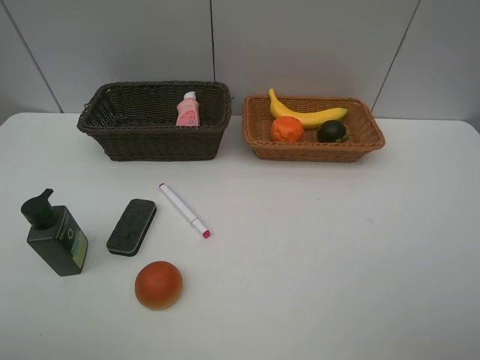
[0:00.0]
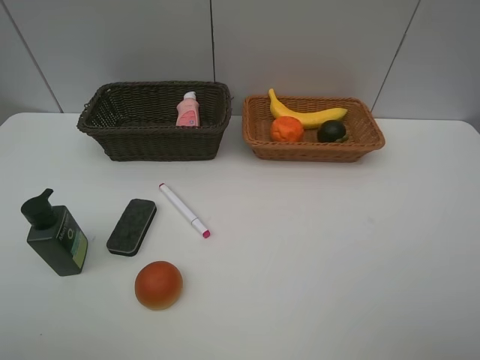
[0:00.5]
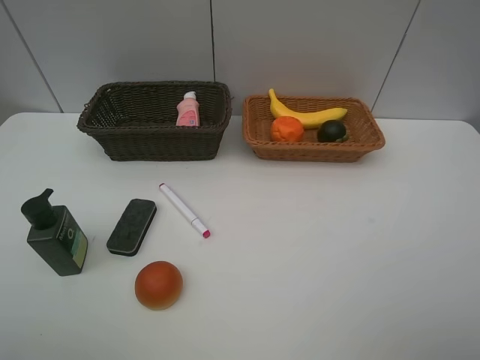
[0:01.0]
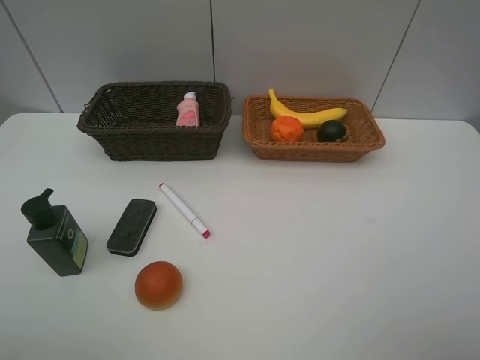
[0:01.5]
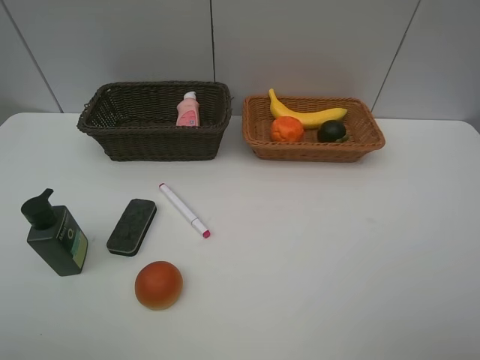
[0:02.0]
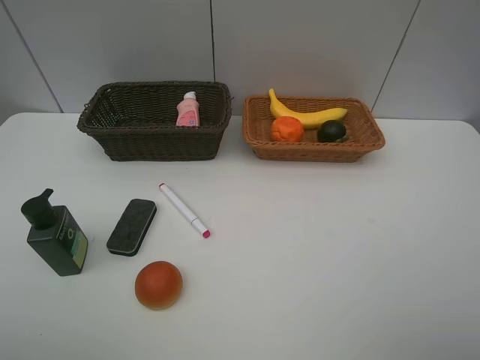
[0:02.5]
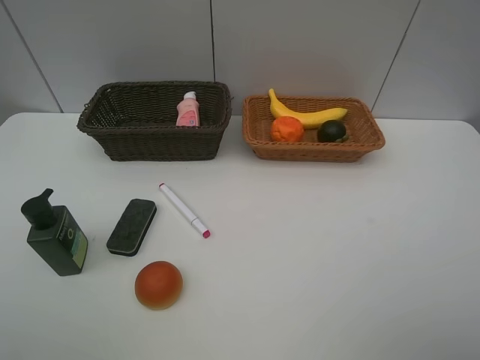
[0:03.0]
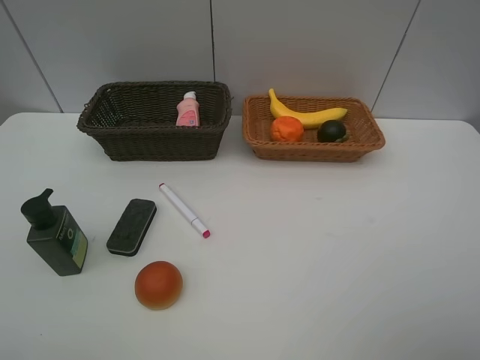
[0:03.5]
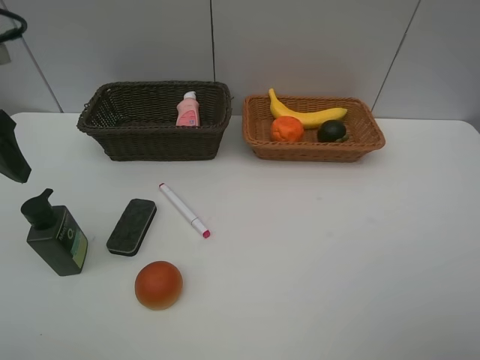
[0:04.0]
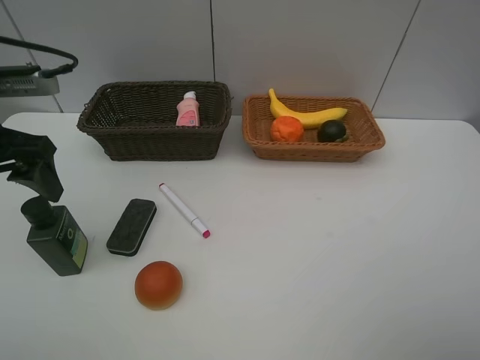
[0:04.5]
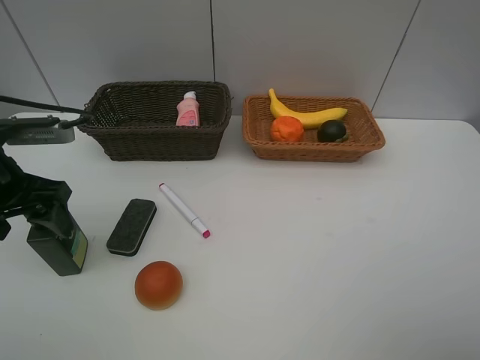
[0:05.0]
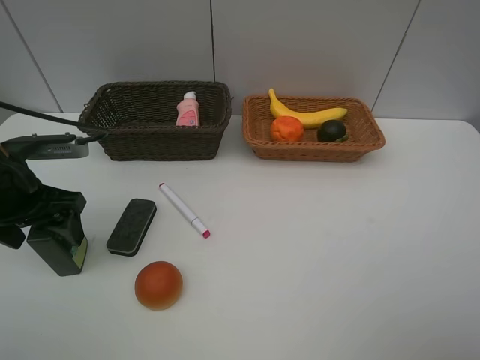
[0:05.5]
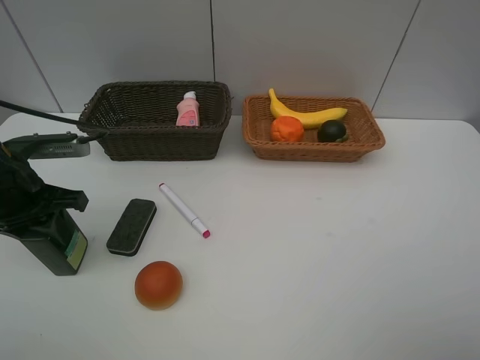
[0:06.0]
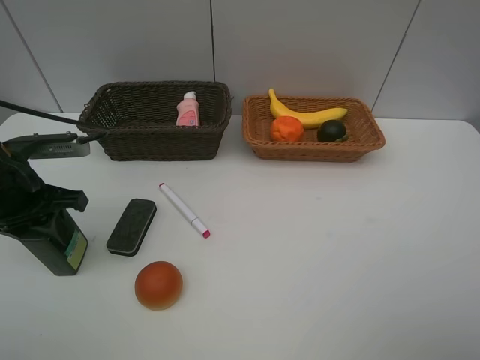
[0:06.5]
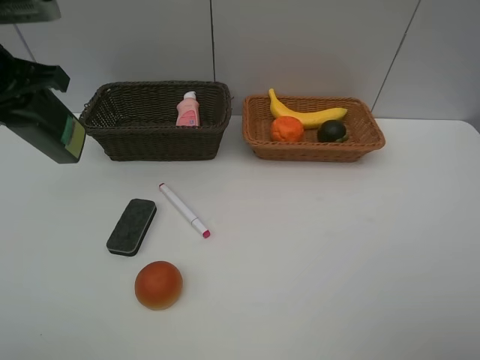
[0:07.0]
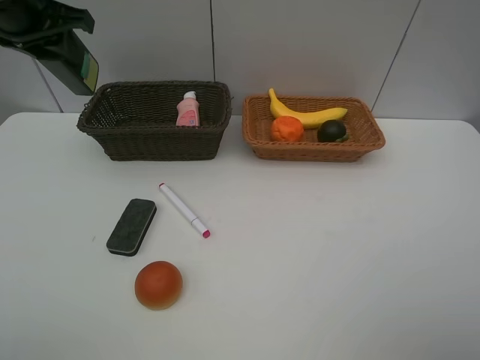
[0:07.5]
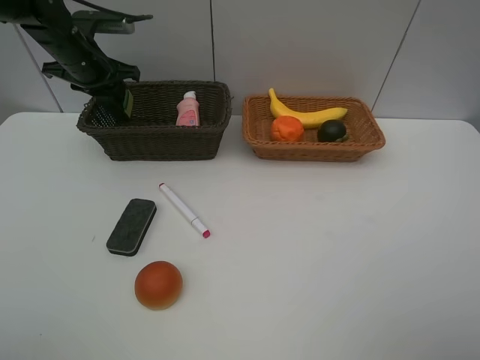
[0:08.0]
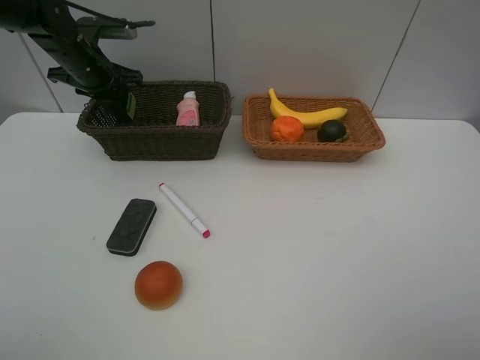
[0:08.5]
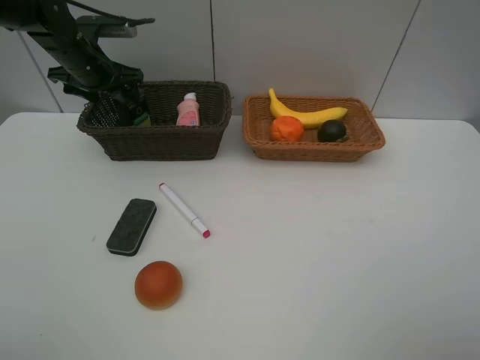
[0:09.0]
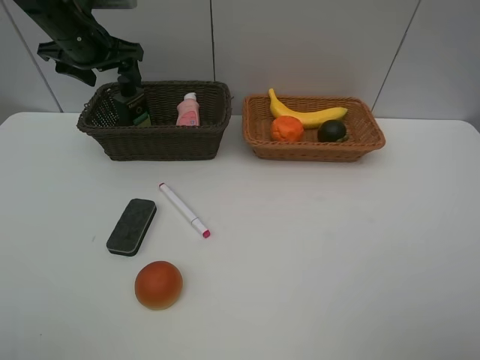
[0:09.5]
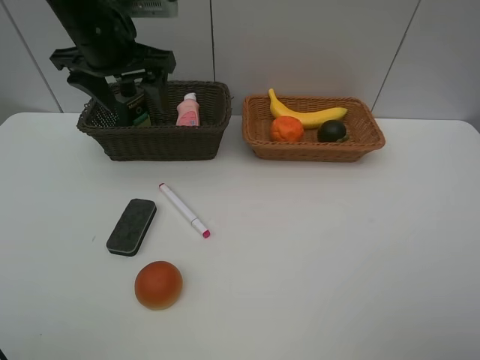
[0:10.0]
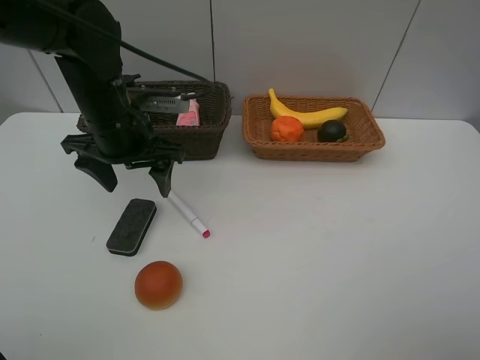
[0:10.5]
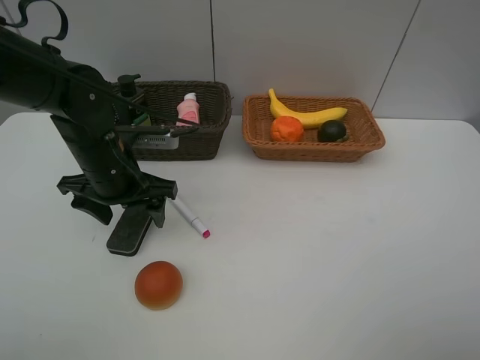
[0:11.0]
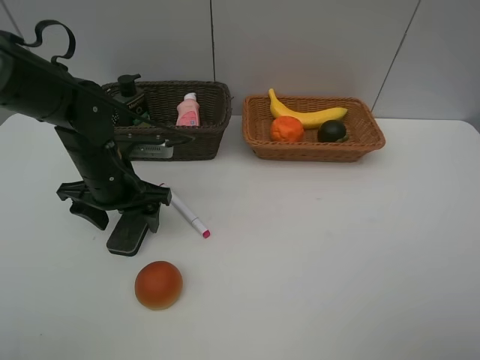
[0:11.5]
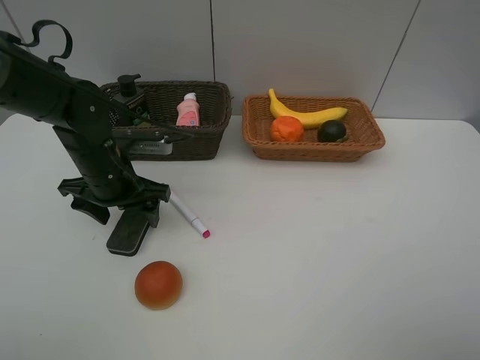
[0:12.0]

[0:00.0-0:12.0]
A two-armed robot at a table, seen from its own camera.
Task of the whole recording: Place multiple objects separately in different baskets.
Step, 0:00.0 to 0:06.5: Pick up the hard facial cleanser with left gripper.
Step, 0:07.0 to 0:09.0: Place the hard facial cleanser in the dark basket with left gripper.
0:02.0 to 0:04.0: The left gripper goes approximately 25 cm forward.
0:04.0 to 0:06.0: The left gripper goes about 10 cm downward, and closes its fingers.
0:06.0 to 0:08.0: The left gripper shifts about 20 cm forward.
0:08.0 to 0:10.0: The left gripper shifts some 15 cm backward, to the right and upward, and opens.
0:10.0 to 0:12.0: The left gripper shifts some 15 cm downward.

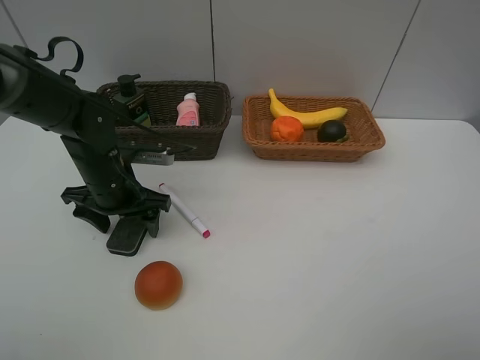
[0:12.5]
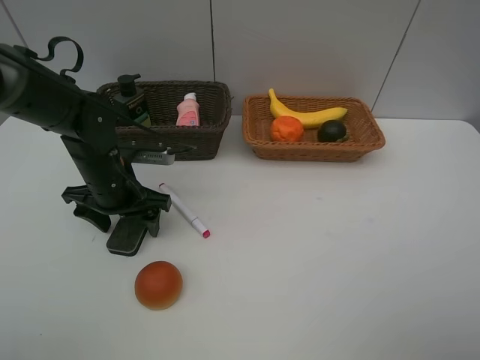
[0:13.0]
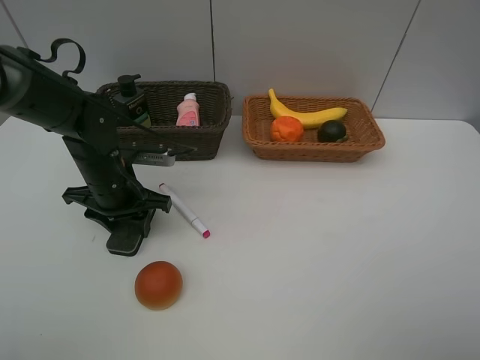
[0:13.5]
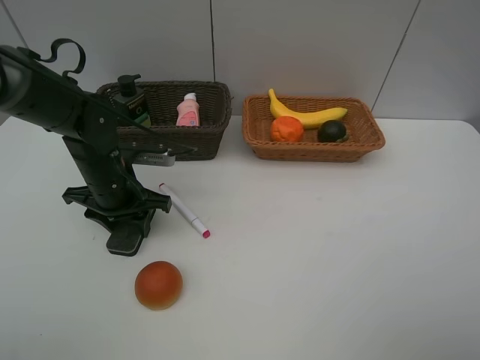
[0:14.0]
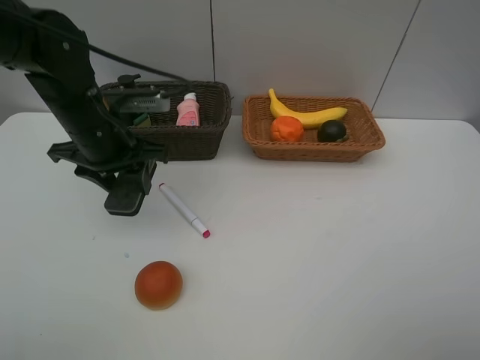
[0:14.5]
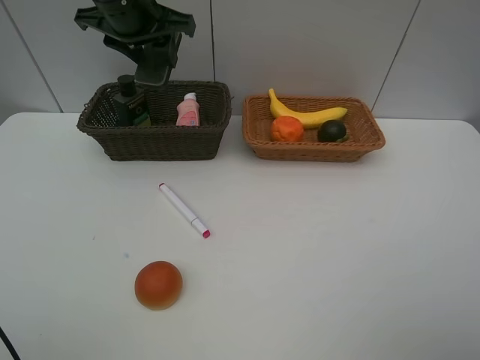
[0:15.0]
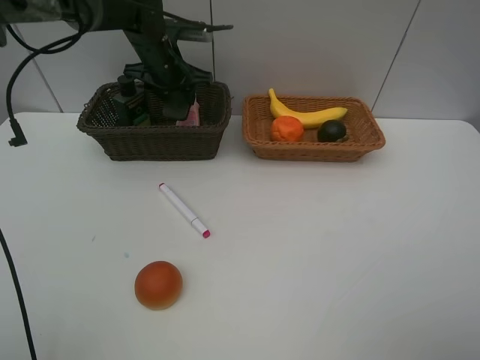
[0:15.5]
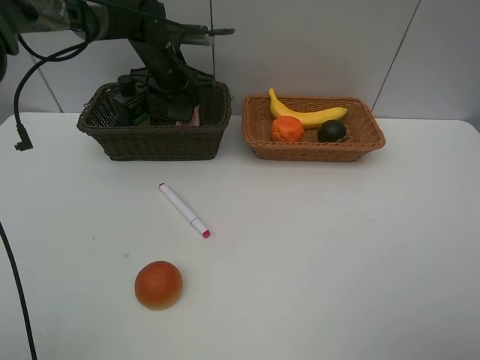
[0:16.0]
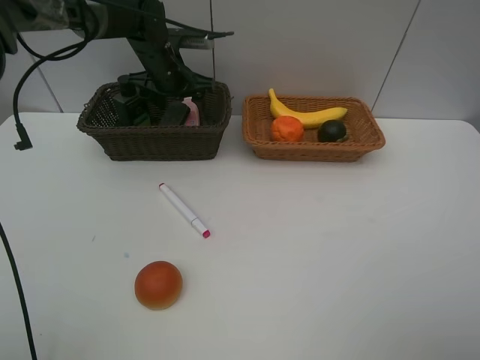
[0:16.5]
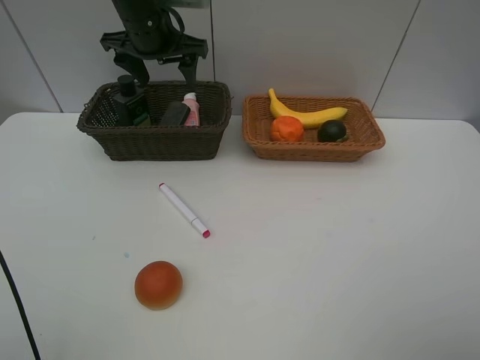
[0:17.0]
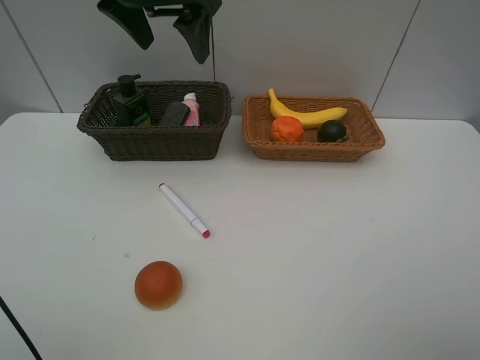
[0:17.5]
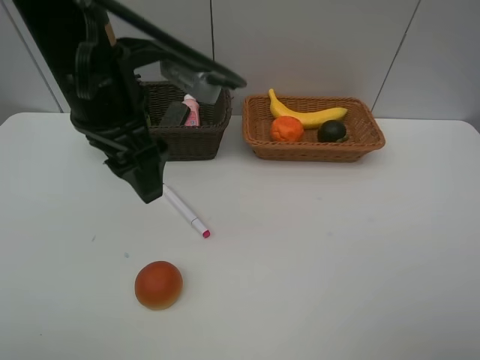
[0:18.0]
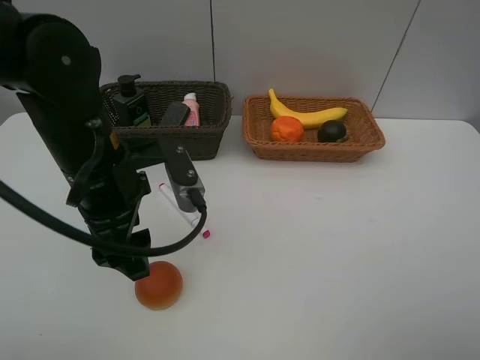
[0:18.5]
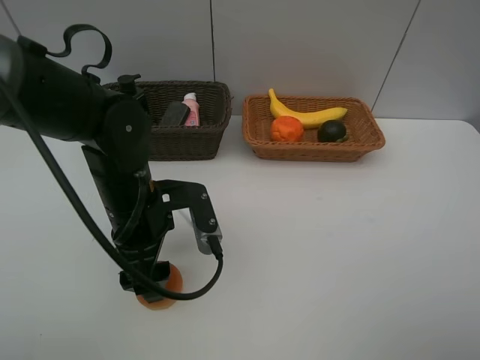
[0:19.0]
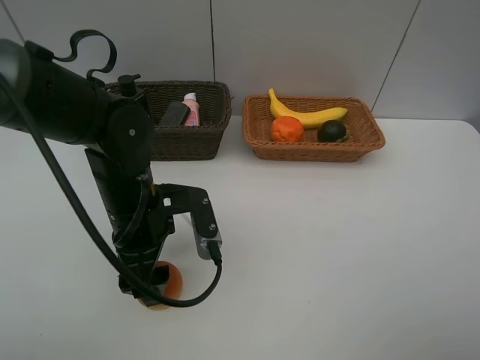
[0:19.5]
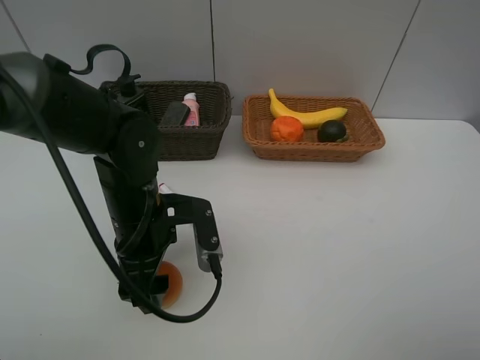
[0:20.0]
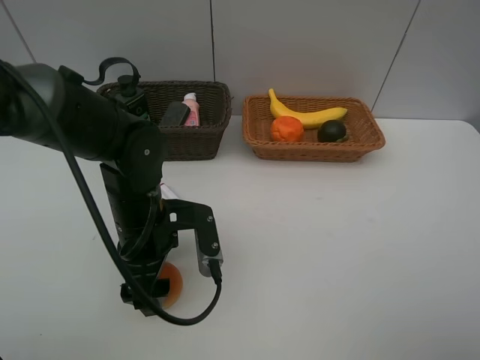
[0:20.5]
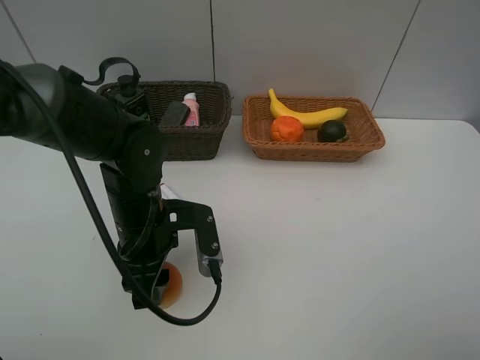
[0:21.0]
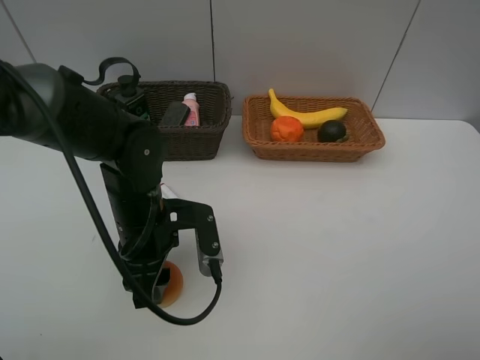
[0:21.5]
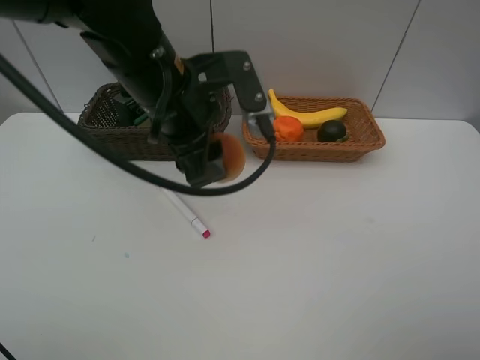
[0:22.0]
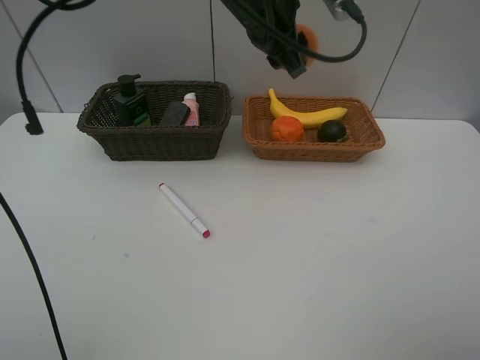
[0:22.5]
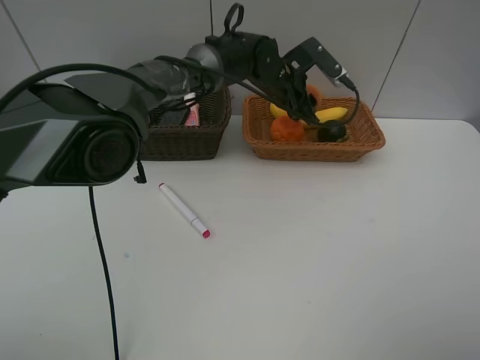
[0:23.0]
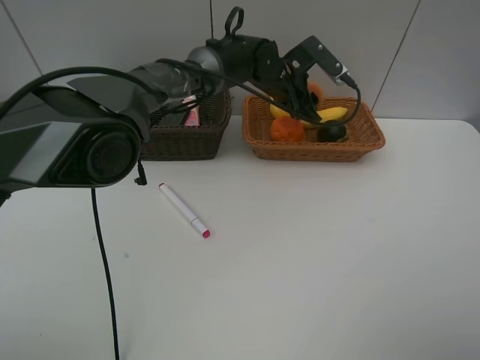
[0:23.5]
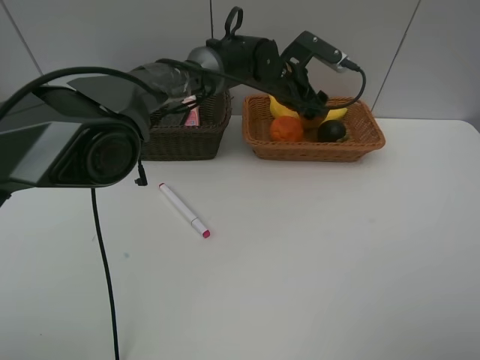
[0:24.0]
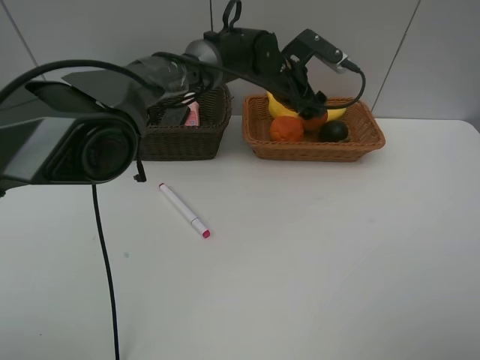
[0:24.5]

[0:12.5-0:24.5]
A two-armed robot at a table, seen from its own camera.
Task of the whole recording: Place multiple objects separately in different baskets.
Step, 0:14.5 to 0:16.5: Place the blackboard eraser in the dark basket with left gripper.
Step, 0:17.0 to 0:21.5: Pick up egg yolk pastry with left gripper.
Step, 0:22.0 to 0:24.5: Place the egg yolk pastry in the light basket with left gripper.
0:12.5 to 0:14.5: The left gripper moves upward, about 10 cm, and closes up.
0:14.5 to 0:16.5: The left gripper is displaced forward by roughly 20 cm, and opens.
0:16.5 to 0:18.5: The left gripper moves backward, some 25 cm.
0:18.5 to 0:20.5: The left gripper goes roughly 10 cm downward.
0:20.5 to 0:22.5: The left gripper travels upward, forward and to the right by about 30 cm, and closes.
0:22.5 to 0:24.5: The left gripper heads downward and forward, covering some 15 cm, and opens its fingers.

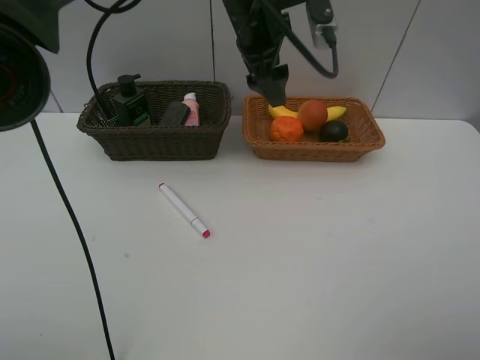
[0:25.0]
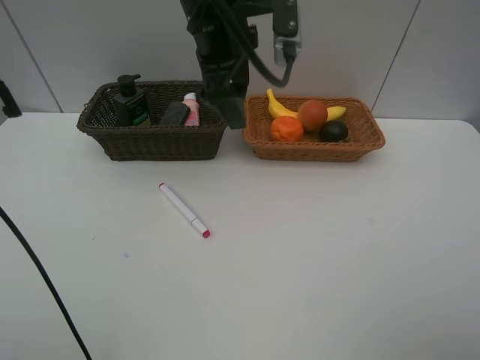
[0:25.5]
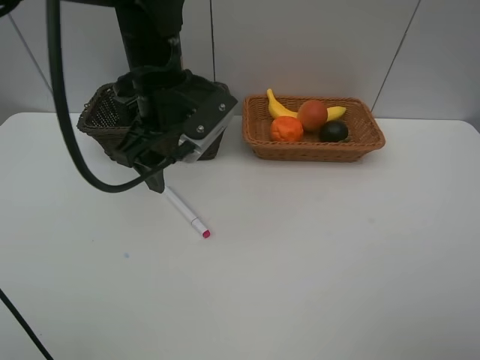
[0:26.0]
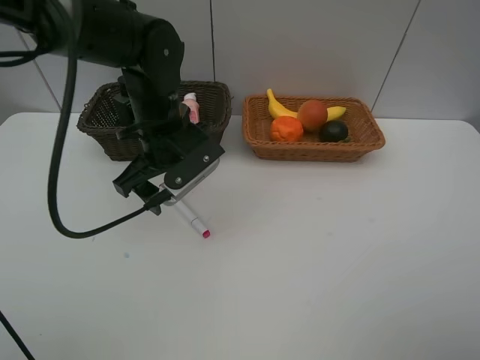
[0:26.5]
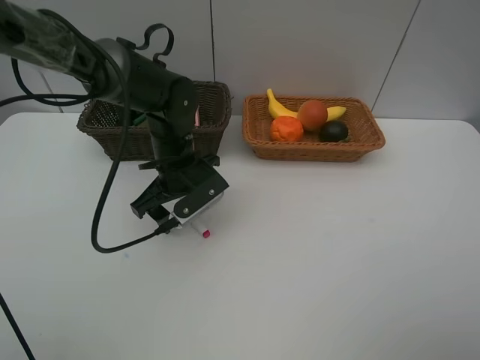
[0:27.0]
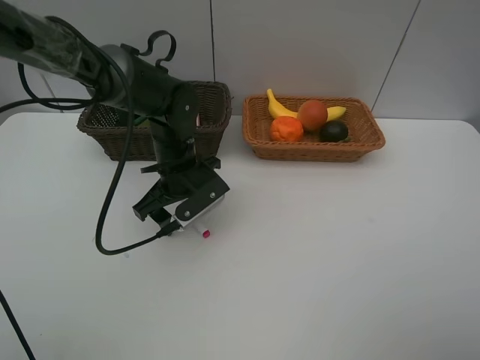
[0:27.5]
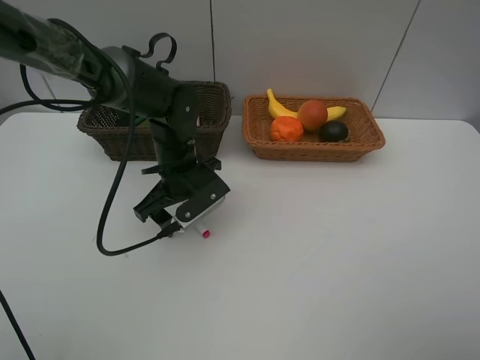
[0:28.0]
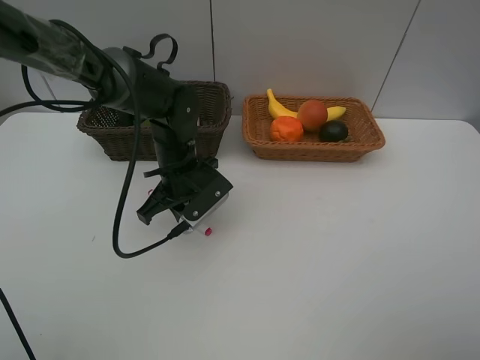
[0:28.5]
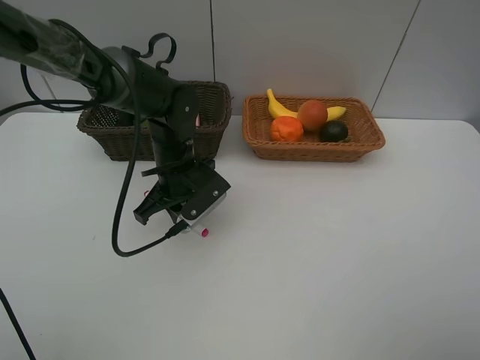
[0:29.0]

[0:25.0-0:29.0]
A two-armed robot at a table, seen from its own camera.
Task of the whole recording: Place multiple objects separately in different baskets.
0:25.0 to 0:27.0: The left gripper goes roughly 20 cm downward and to the left.
0:27.0 to 0:29.0: The left gripper closes up.
